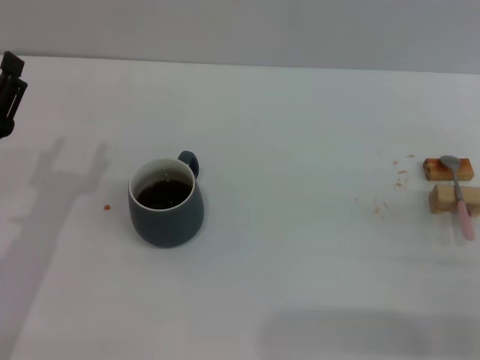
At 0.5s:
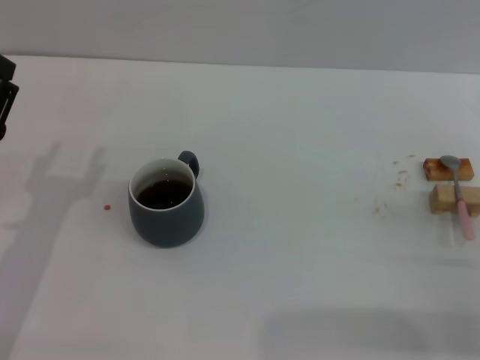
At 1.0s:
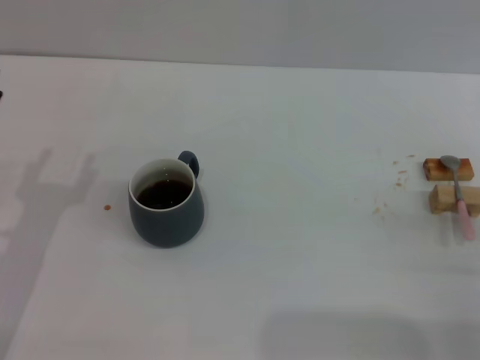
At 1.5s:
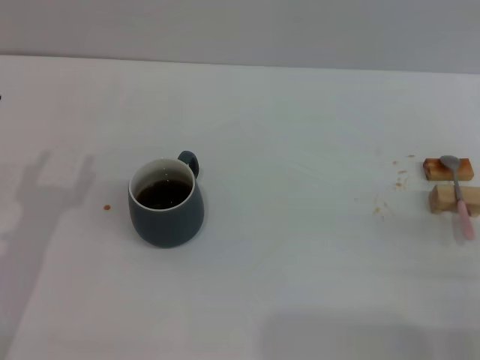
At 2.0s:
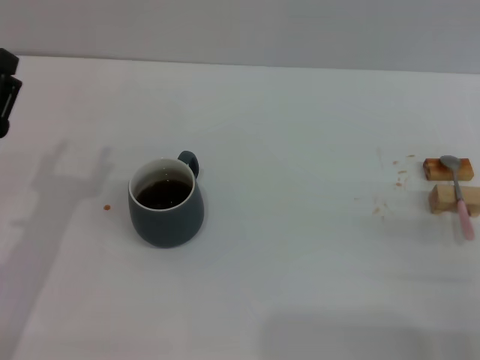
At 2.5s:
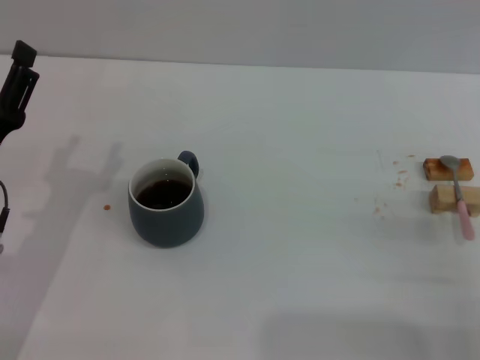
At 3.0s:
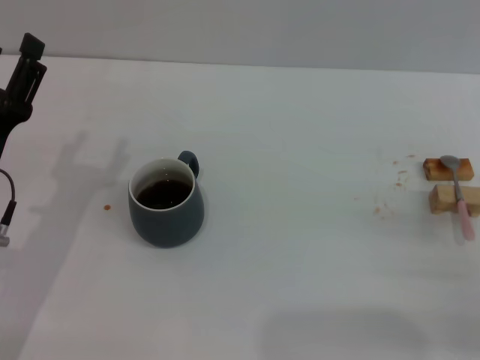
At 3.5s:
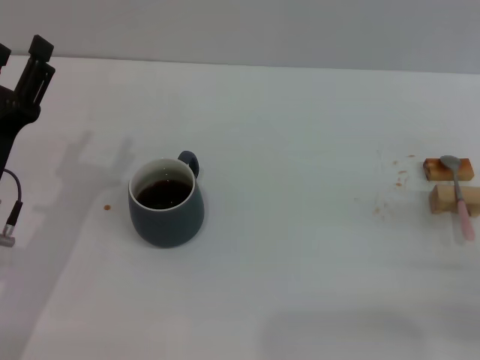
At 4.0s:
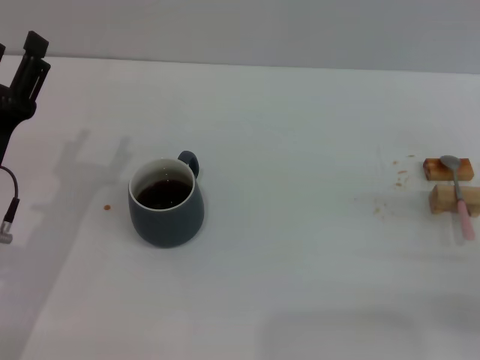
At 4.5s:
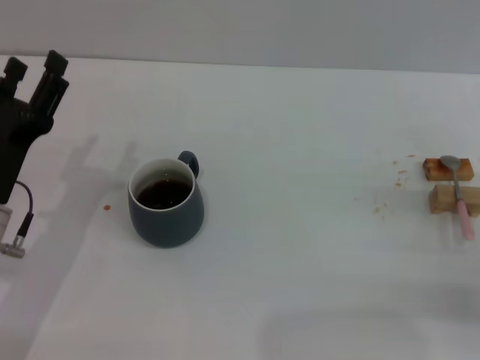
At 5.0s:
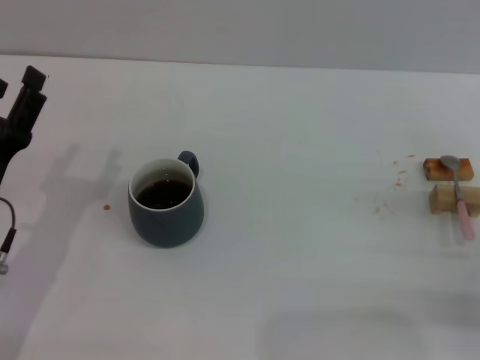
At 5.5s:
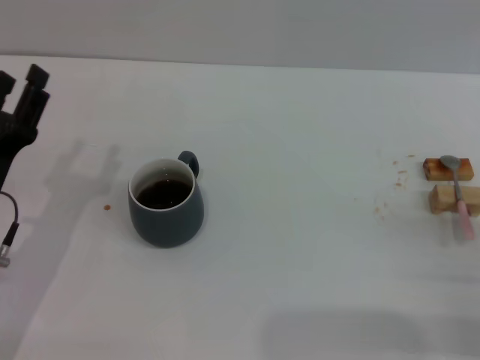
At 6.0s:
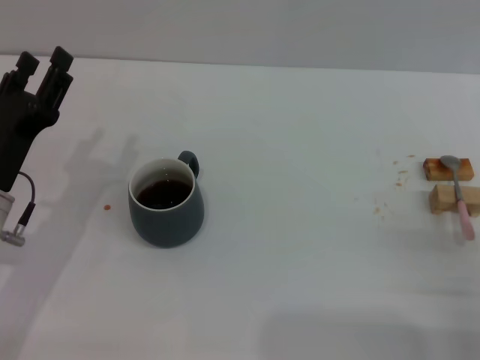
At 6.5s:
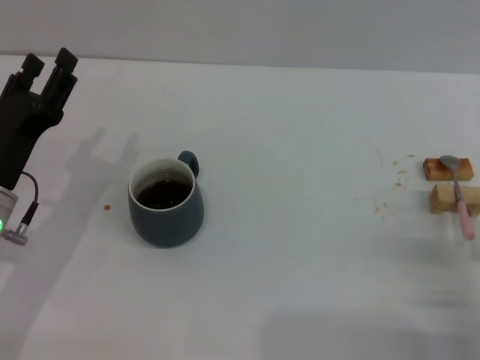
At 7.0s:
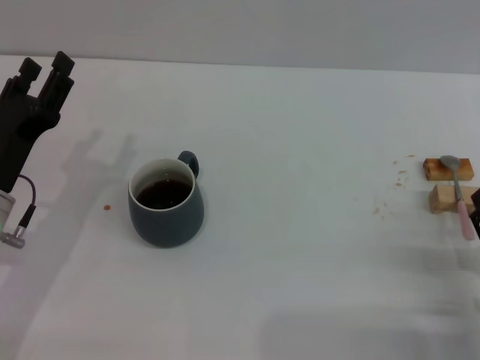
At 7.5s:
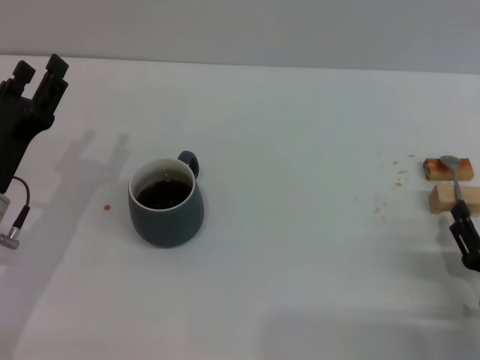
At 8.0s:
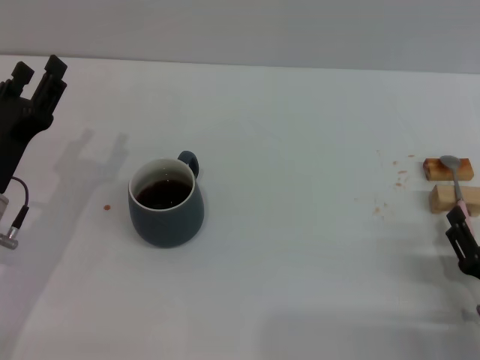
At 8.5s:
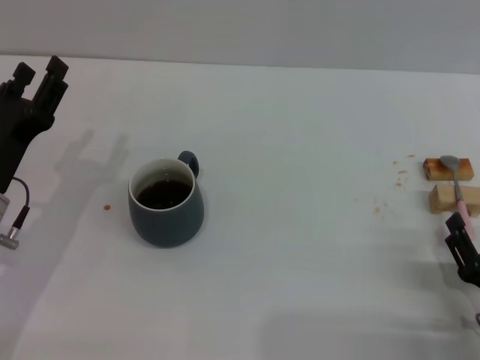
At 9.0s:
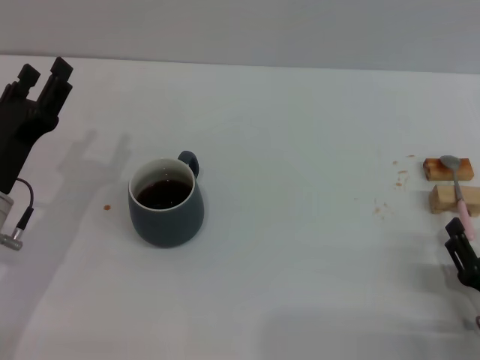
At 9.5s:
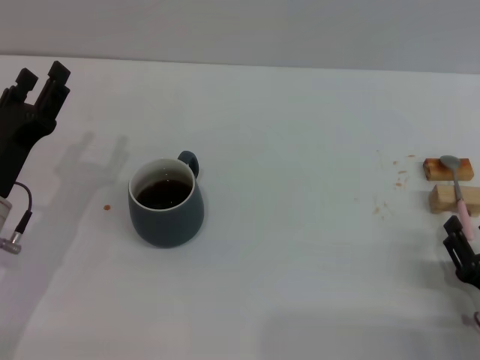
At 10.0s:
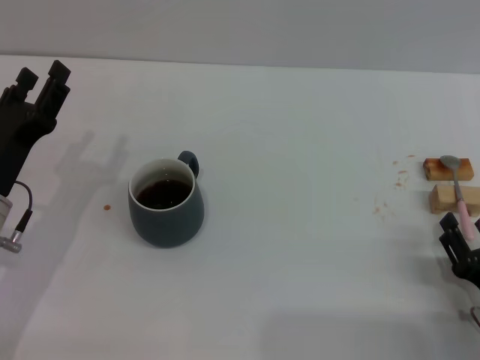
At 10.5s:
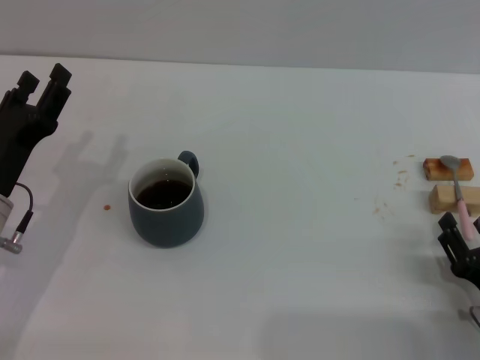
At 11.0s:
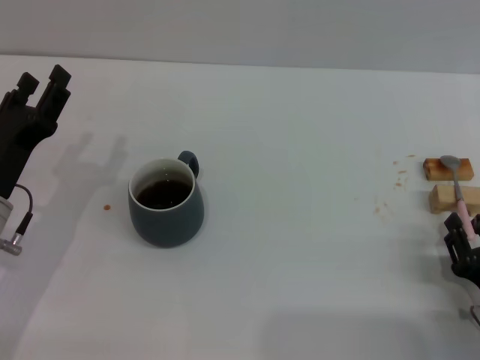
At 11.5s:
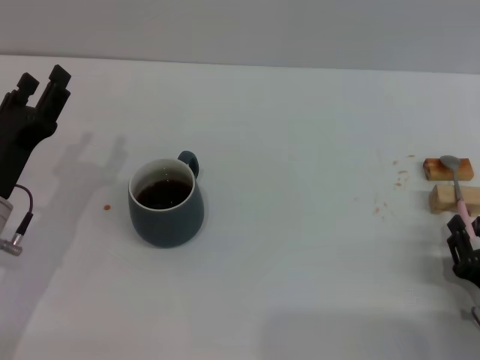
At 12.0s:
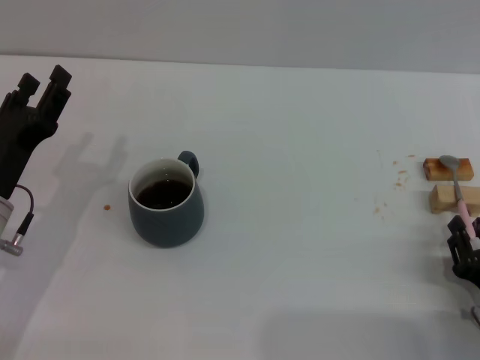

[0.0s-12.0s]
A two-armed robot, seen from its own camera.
Task of the whole recording: Move the grey cup to the center, lift the pink spoon, stir it three times in the cup, and put the spoon into the cup.
2.0s to 4.0s: The grippers stay close to where they were, moving slightly.
4.0s to 6.0s: The left gripper closes.
6.0s to 8.0s: The right gripper shifts by some 5 cm.
8.0s to 10.0s: Both grippers stay about where they are.

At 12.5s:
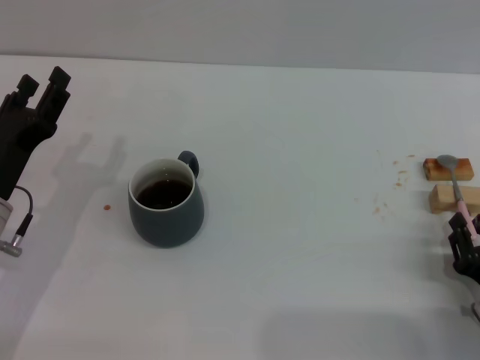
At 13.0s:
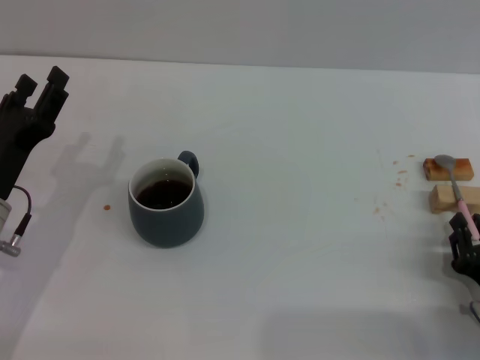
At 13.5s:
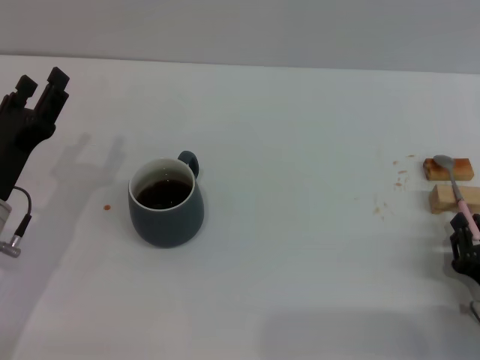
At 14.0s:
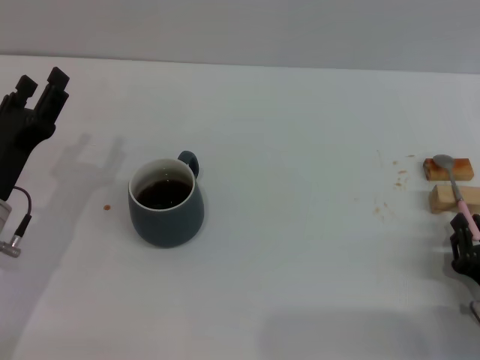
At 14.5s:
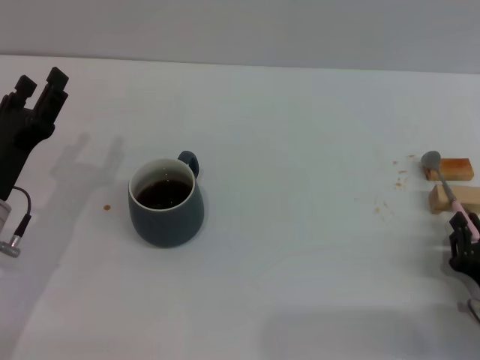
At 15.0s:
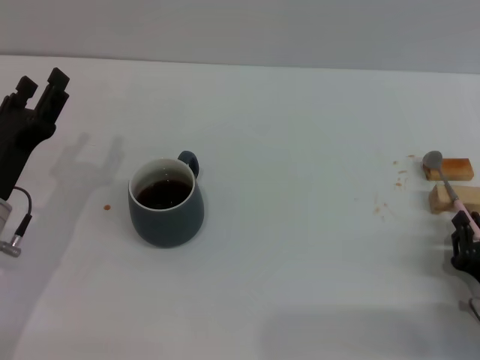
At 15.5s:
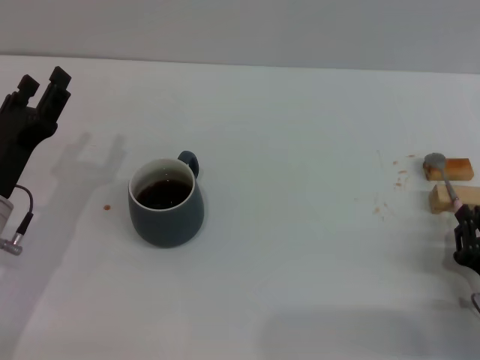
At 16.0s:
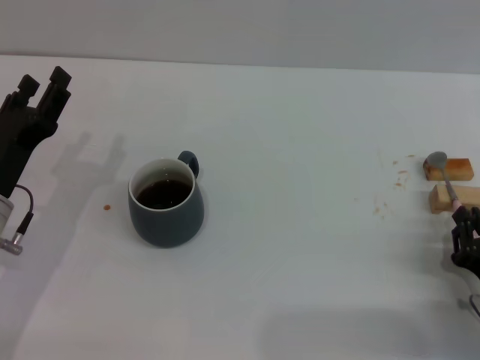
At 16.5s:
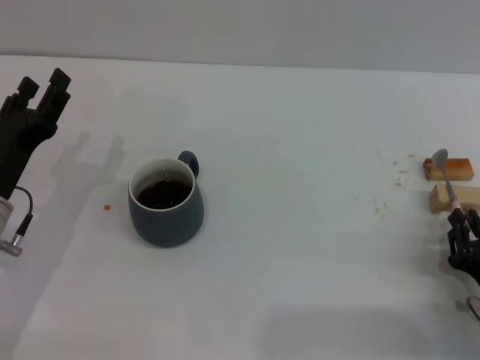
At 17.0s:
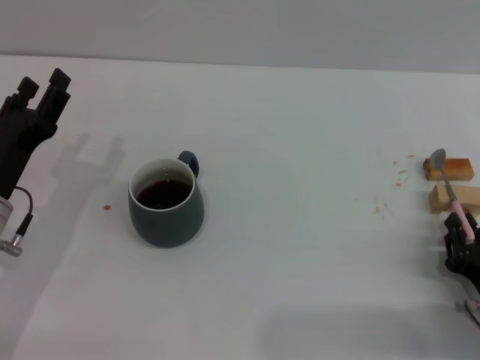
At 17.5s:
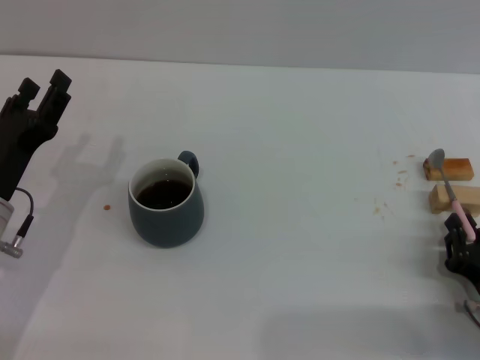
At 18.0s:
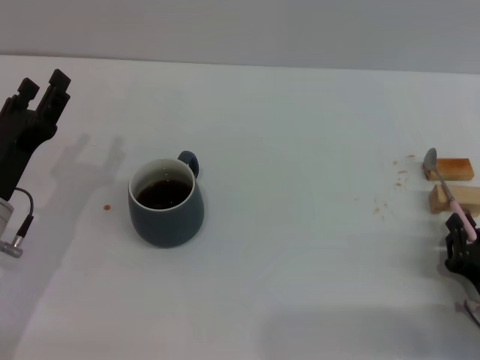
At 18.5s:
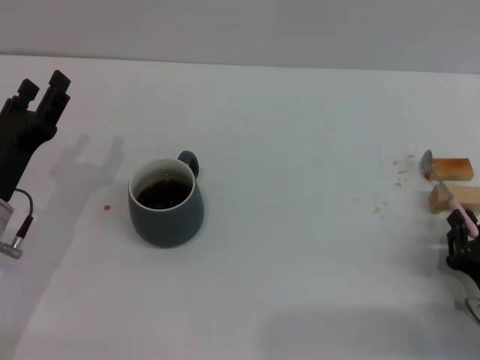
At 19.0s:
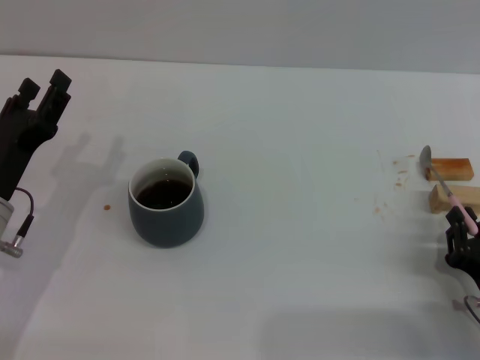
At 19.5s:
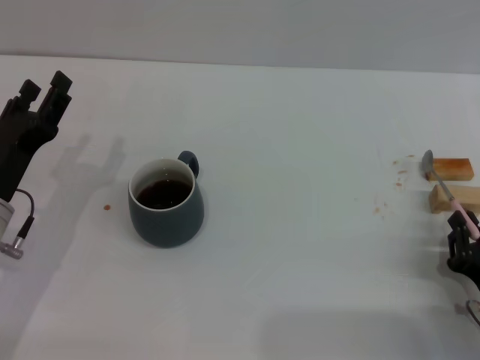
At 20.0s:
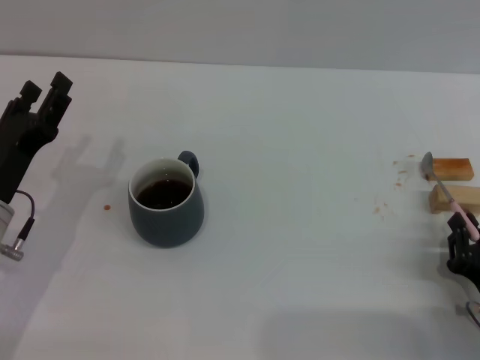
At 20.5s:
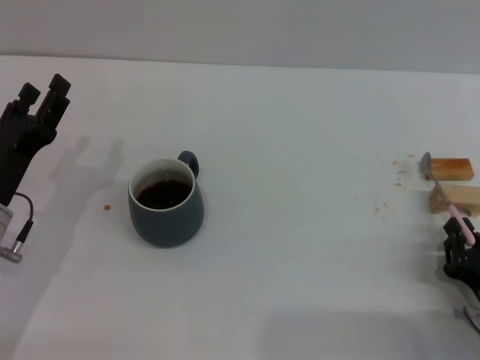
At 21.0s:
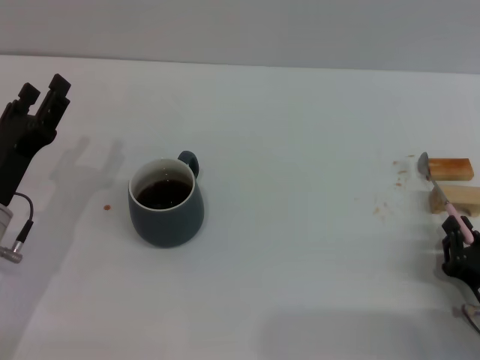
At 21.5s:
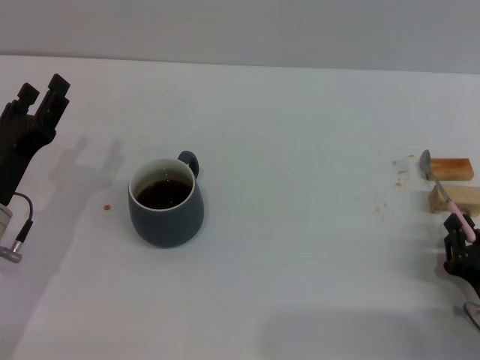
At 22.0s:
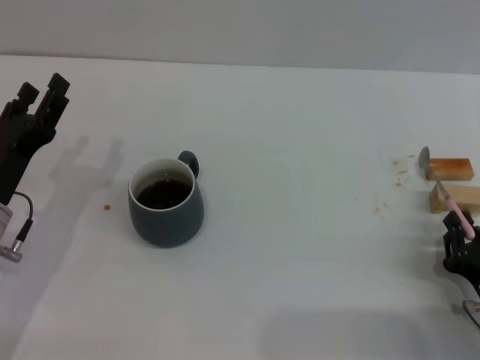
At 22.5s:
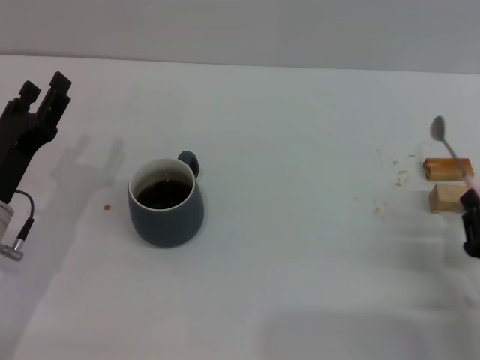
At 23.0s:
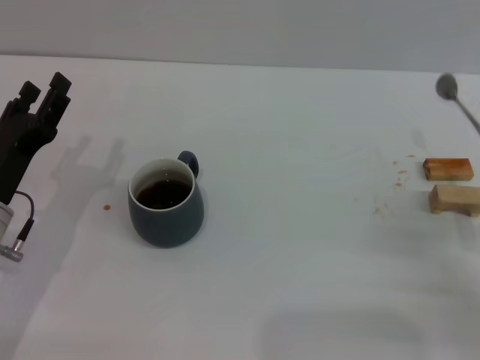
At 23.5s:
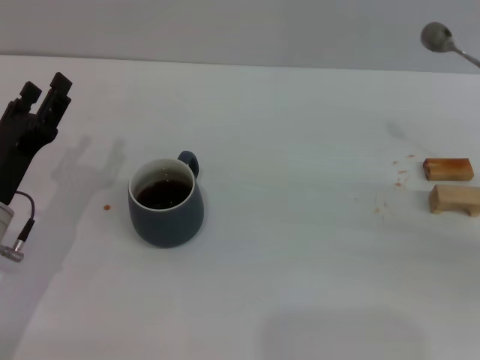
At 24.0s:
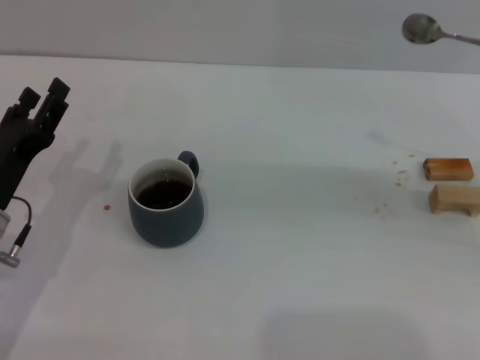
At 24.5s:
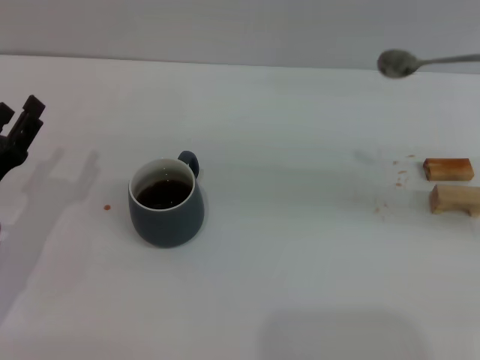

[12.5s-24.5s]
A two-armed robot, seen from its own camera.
Task of the whole recording: Move the grey cup to the center, lift the pink spoon, stir it three times in the cup, and put the spoon into the cup.
Step, 12.5s to 22.5s: Pick up the spoon with the right gripper.
12.5s to 20.5s: Both grippers stay put.
20.5s to 22.5s: There are only small adjustments of the grippers.
22.5s to 24.5s: The right gripper goes approximately 30 cm upward and forward.

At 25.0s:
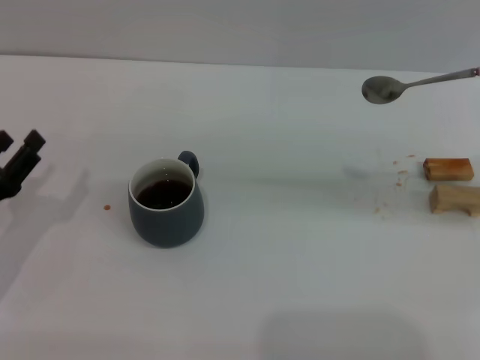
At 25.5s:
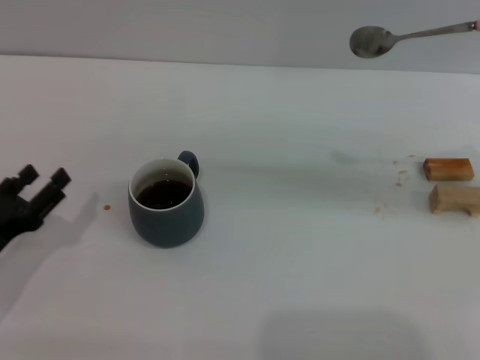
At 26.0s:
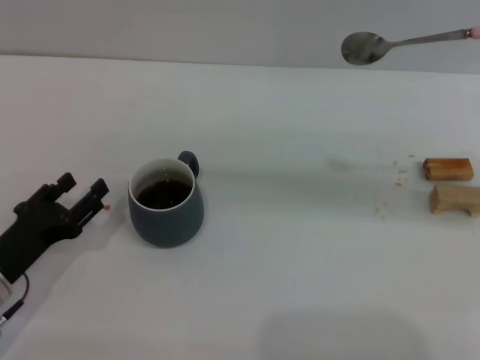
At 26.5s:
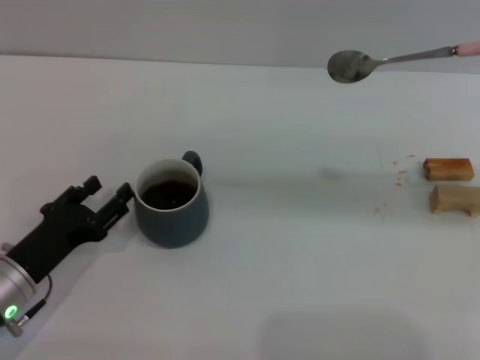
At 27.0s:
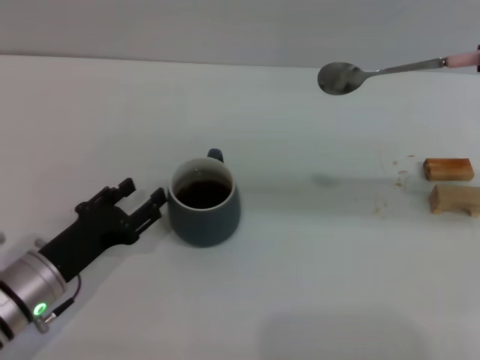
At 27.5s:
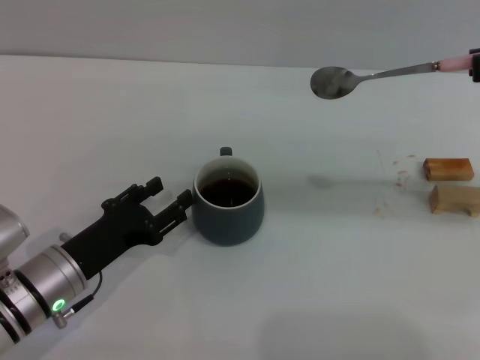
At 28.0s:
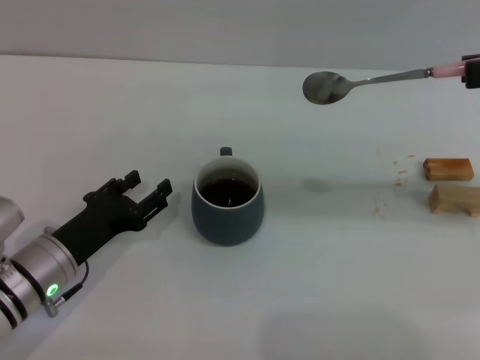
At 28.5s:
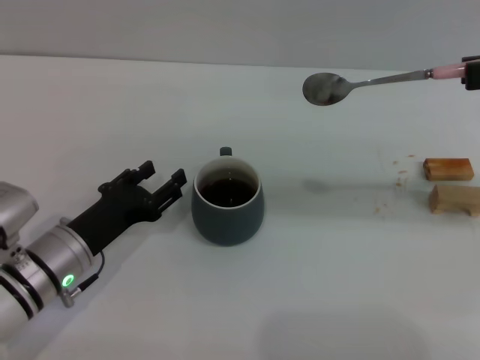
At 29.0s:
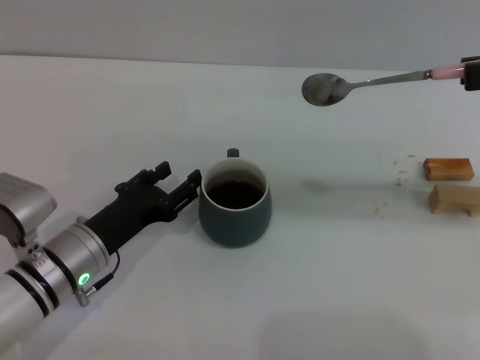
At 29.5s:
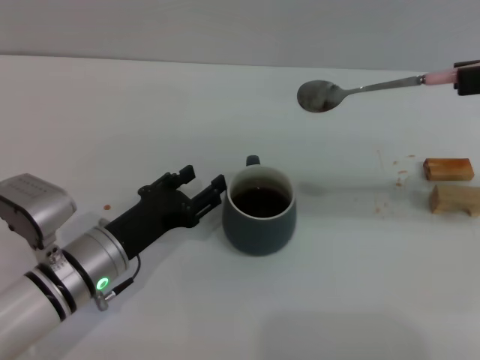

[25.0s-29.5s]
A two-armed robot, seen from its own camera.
Task of the whole recording: Move the grey cup to the center, lift the pink spoon, stir it three times in the cup, and put the spoon into the cup.
25.0s to 27.0s: The left gripper goes some 10 cm to the right.
27.0s to 29.5s: The left gripper heads to the right, covering about 5 cm.
